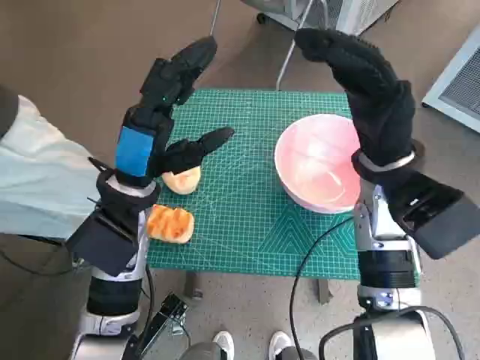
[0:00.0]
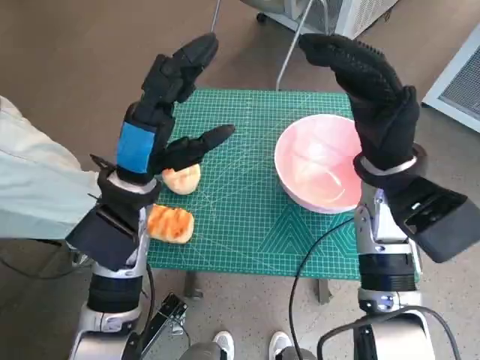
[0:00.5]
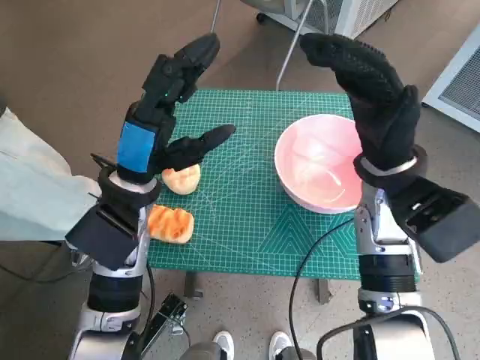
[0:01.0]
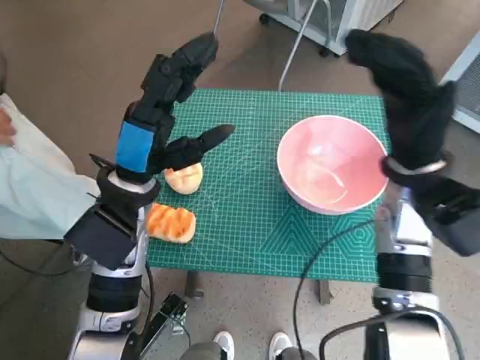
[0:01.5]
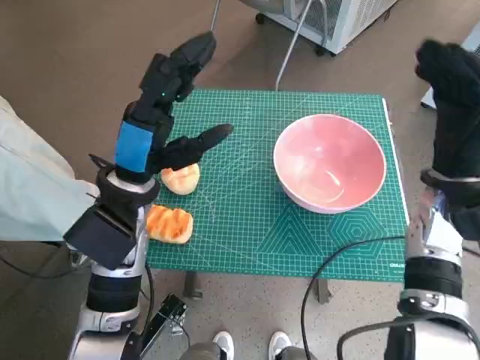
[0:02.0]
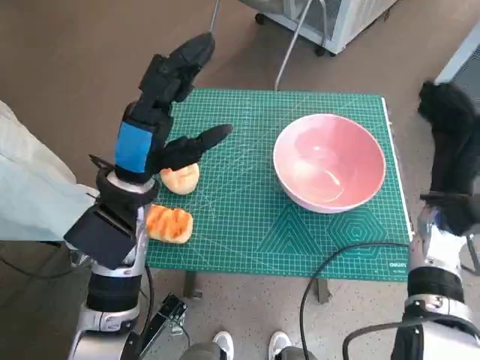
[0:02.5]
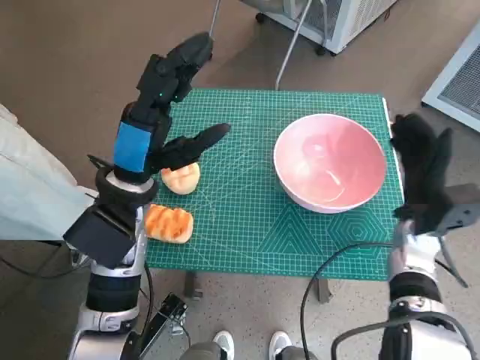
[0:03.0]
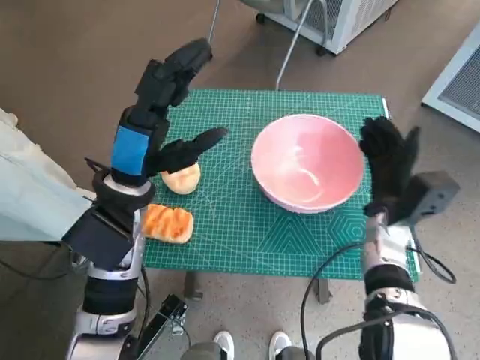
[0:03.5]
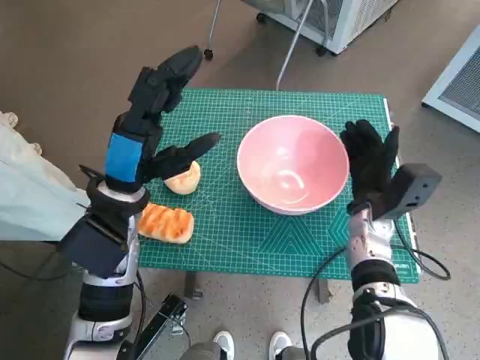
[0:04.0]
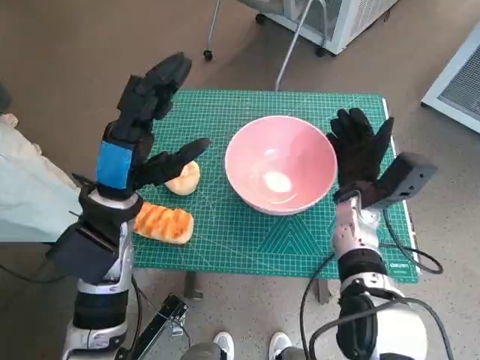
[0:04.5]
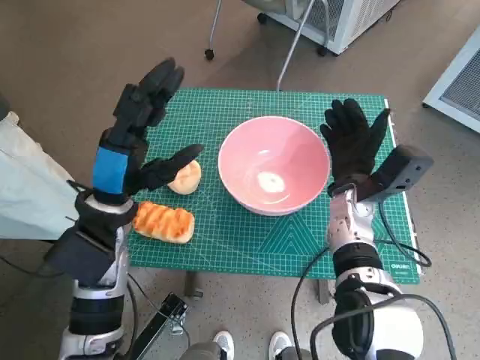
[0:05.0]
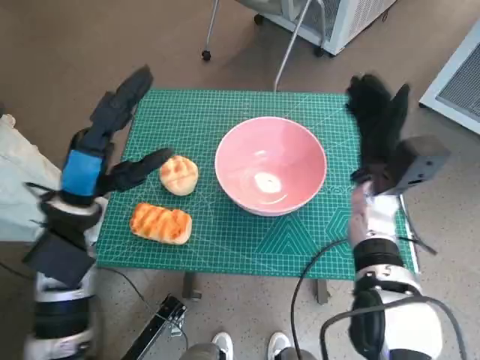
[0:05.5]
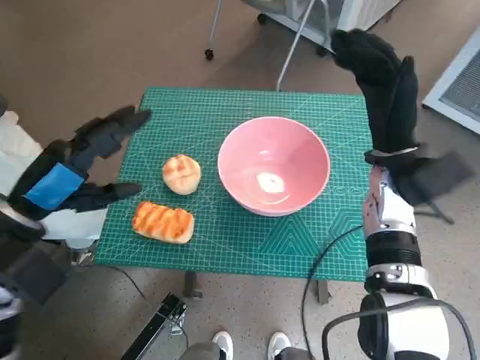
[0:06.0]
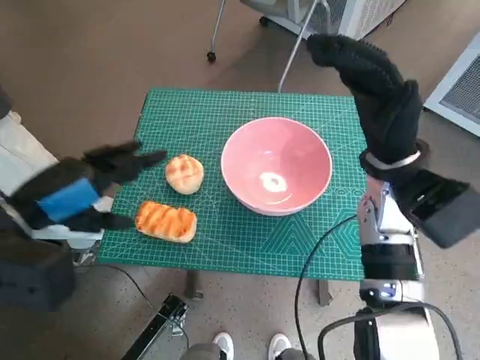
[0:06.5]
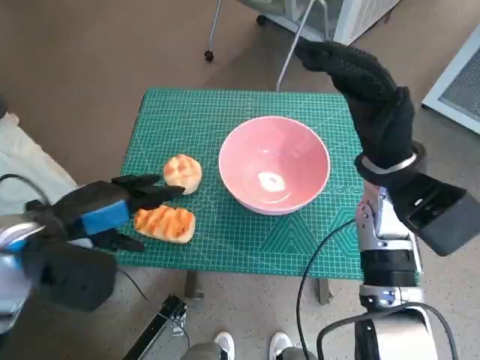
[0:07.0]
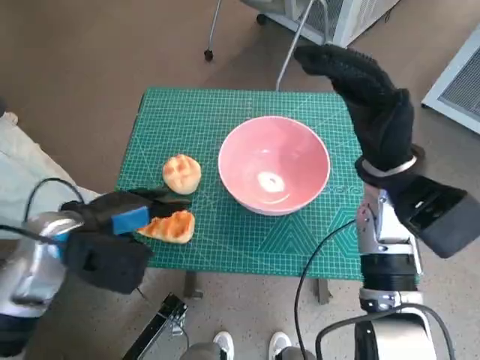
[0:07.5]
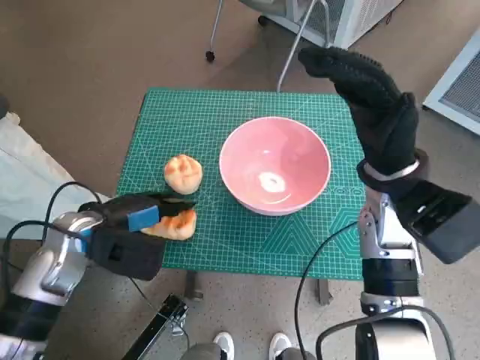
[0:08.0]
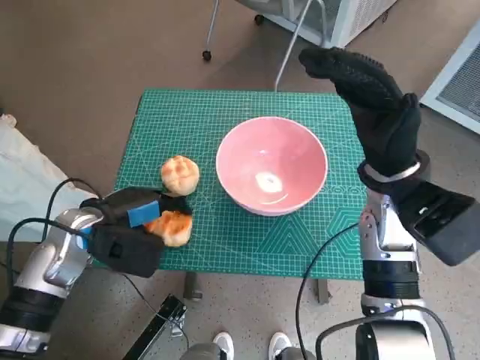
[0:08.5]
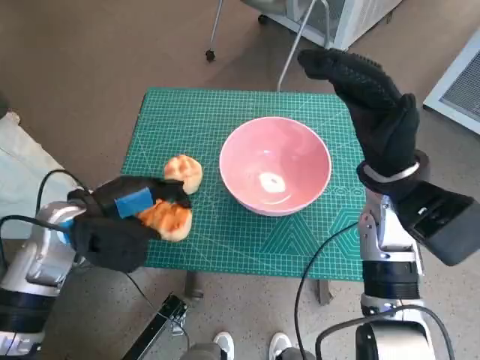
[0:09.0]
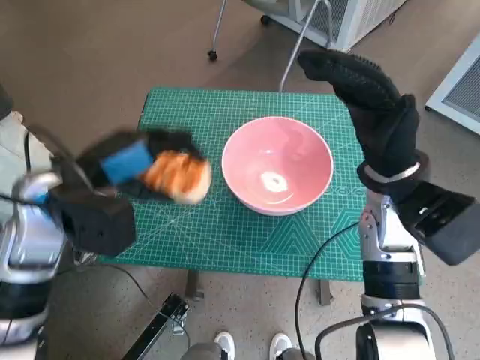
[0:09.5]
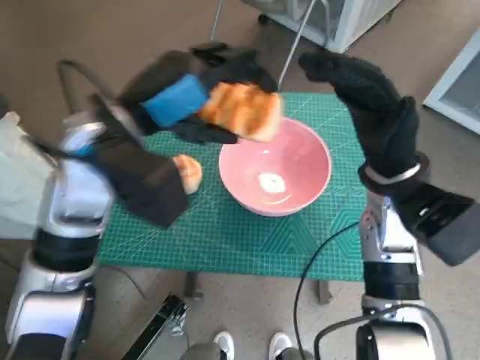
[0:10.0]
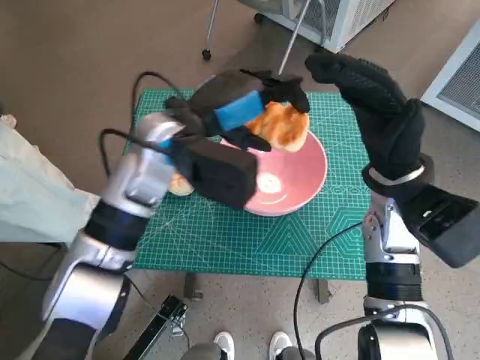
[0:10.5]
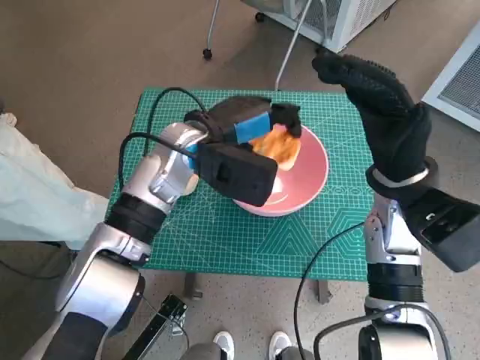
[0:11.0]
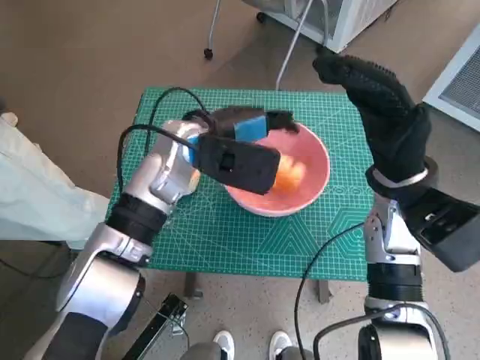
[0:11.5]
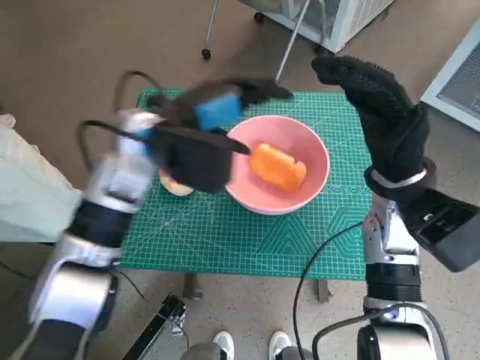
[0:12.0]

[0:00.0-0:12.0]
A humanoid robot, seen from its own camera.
Task of the whole recording: Push the bowl to the center of the table and put the bread into the bowl.
Step, 0:00.0 to 0:05.0: Move the pink bowl to the center of table with right hand.
Step, 0:05.5 to 0:08.5: Grasp the long bread with left hand.
Step, 0:09.0 to 0:11.5: Place the long bread in pink bowl with left hand.
0:02.0 to 0:04.0: The right hand travels downward and to the left by approximately 10 cm.
0:04.0 to 0:06.0: The right hand travels upward by approximately 10 cm. Meanwhile the left hand heads to the left, covering about 10 cm.
0:06.0 to 0:08.0: The left hand shifts some 5 cm downward.
0:08.0 to 0:10.0: The left hand shifts approximately 15 cm upward and to the right.

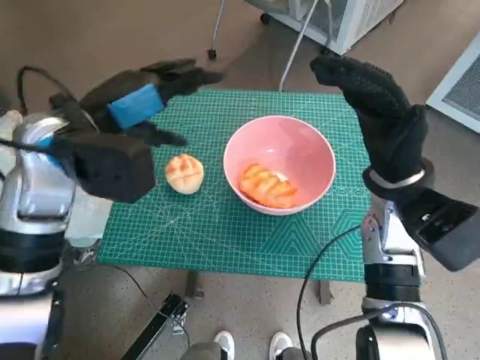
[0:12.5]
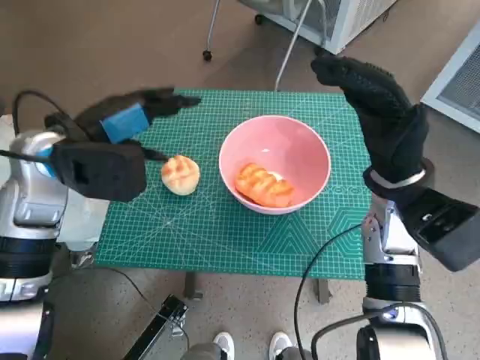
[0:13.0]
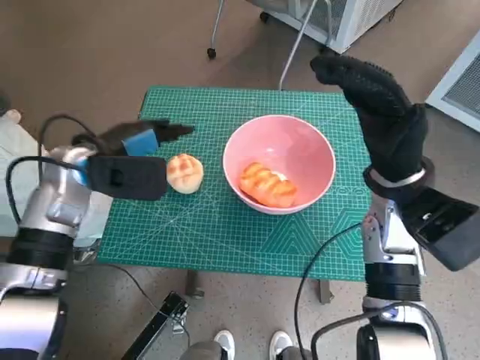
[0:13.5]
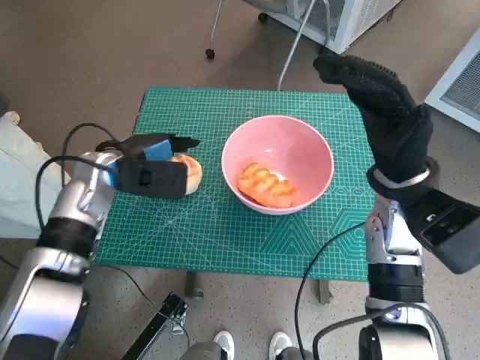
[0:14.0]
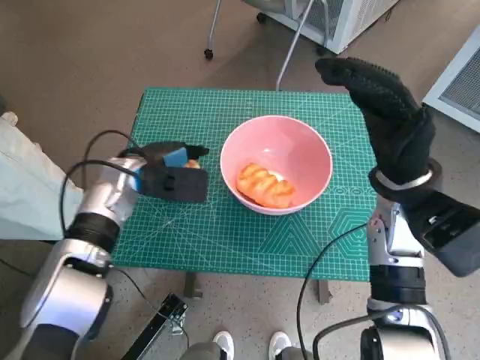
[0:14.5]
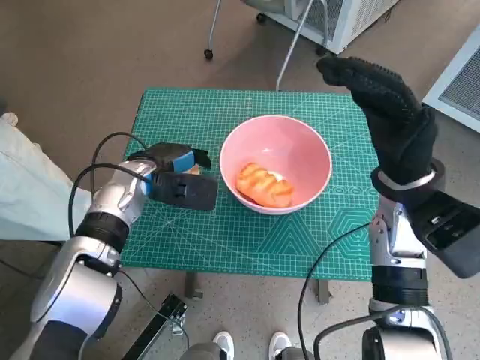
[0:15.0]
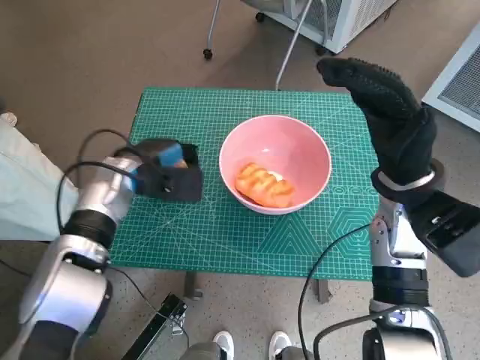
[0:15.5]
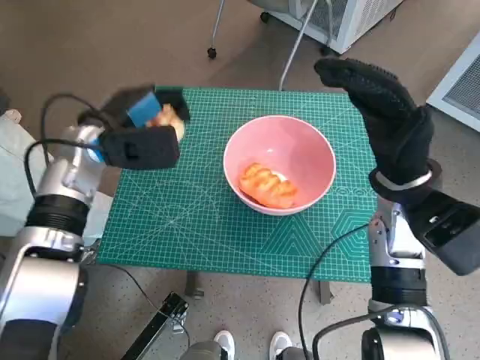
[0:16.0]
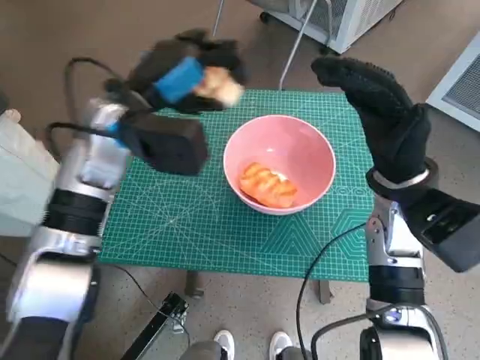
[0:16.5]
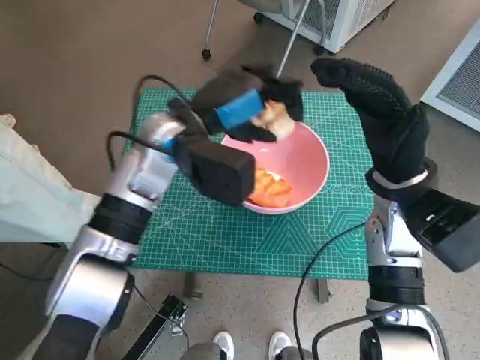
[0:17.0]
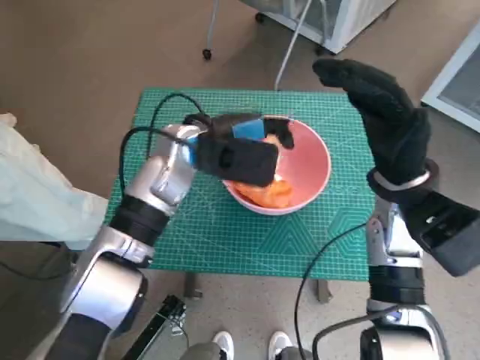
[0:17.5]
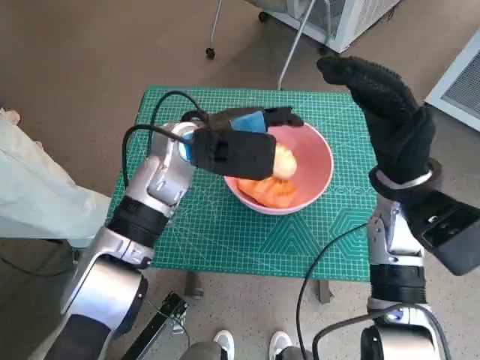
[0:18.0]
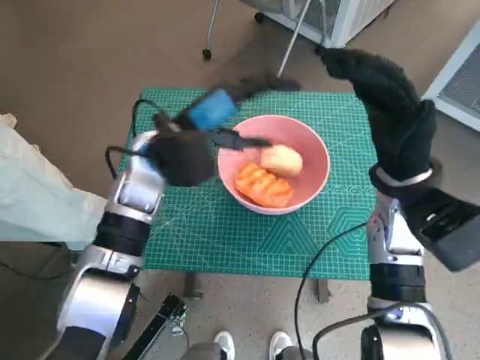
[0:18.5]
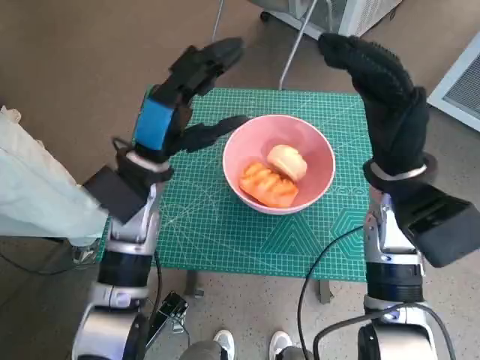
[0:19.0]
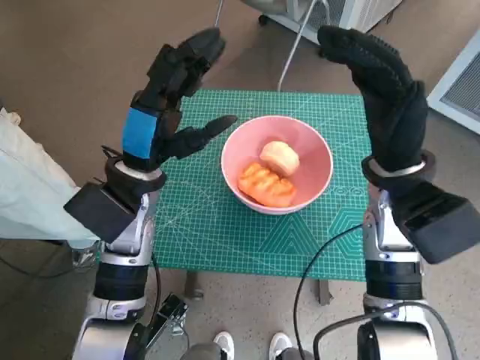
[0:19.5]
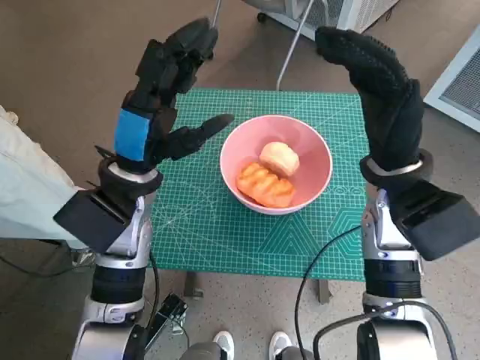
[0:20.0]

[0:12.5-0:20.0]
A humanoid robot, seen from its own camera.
Task of the whole recording: Push the bowl to the center of the table and put the bread into the bowl.
Step, 0:12.5 to 0:15.0: Grasp the round bread with left hand.
Step, 0:15.5 to 0:18.0: Place the round bread in pink bowl with left hand.
0:12.5 to 0:14.5: The left hand moves downward, approximately 15 cm.
0:14.5 to 0:16.5: The left hand moves upward, roughly 10 cm.
0:16.5 to 0:18.0: The left hand moves to the right, some 10 cm.
0:18.0 to 0:20.0: The left hand moves backward and to the left, roughly 10 cm.

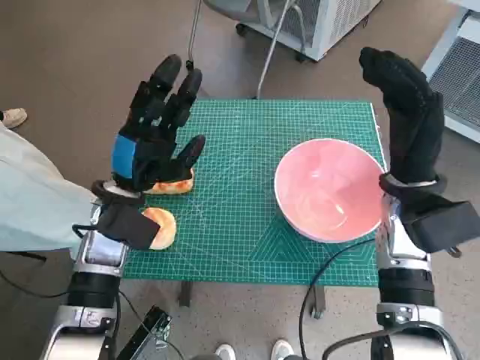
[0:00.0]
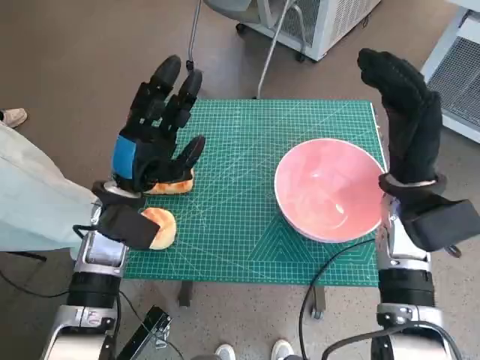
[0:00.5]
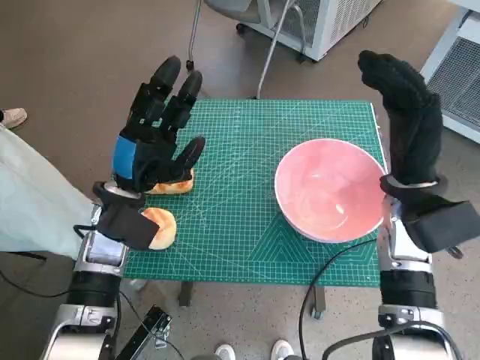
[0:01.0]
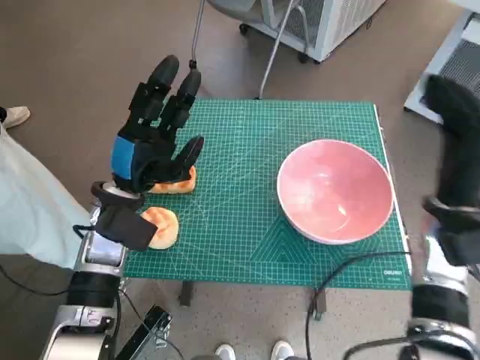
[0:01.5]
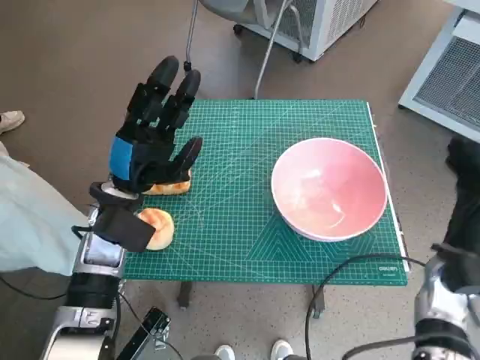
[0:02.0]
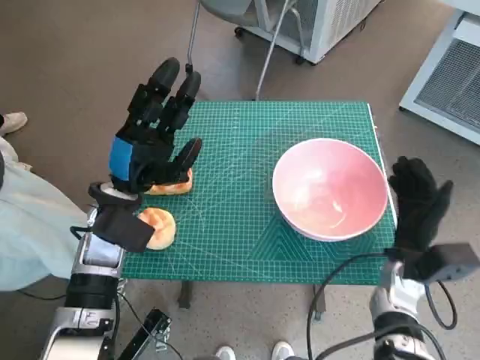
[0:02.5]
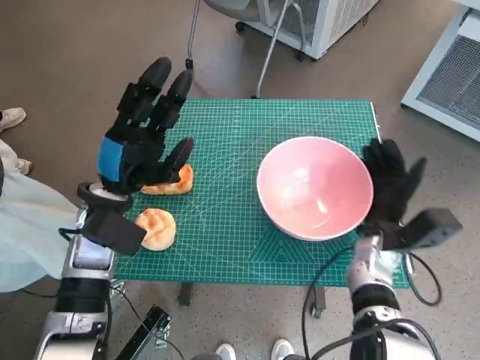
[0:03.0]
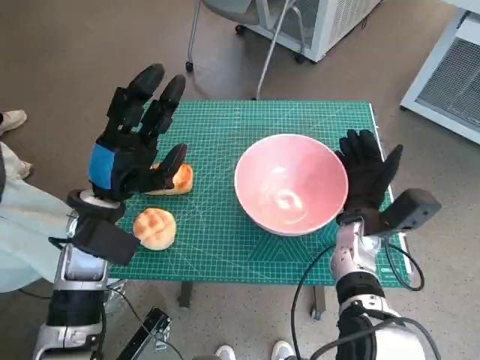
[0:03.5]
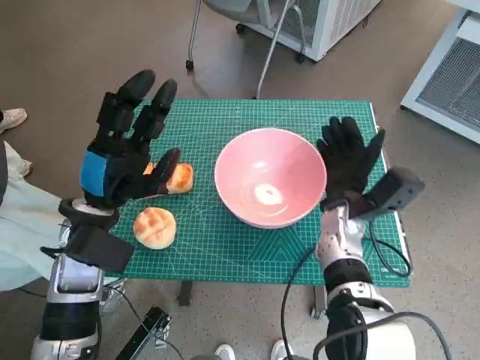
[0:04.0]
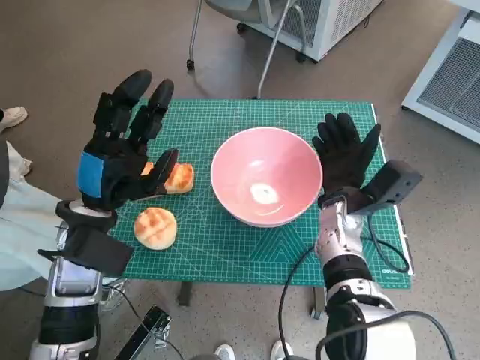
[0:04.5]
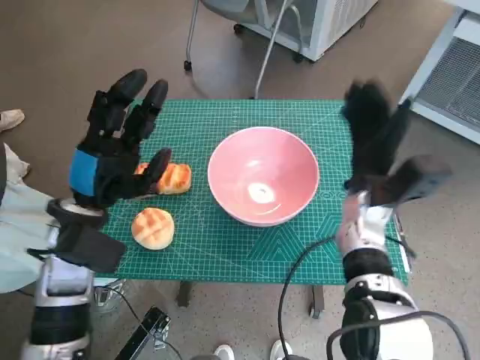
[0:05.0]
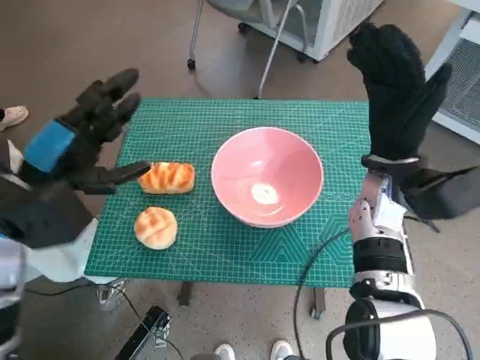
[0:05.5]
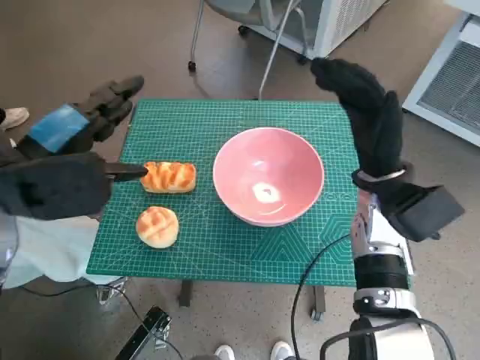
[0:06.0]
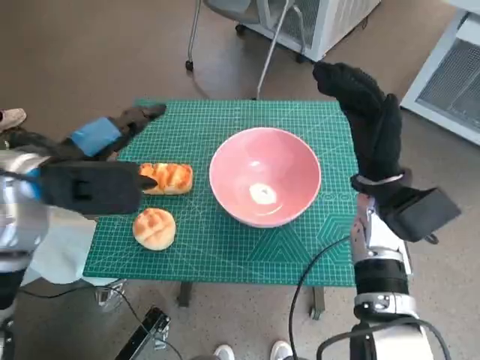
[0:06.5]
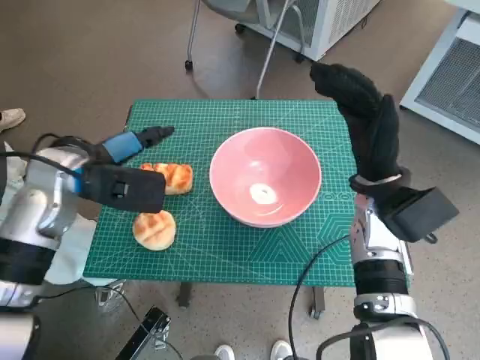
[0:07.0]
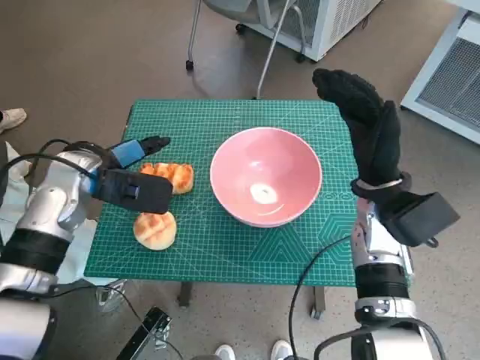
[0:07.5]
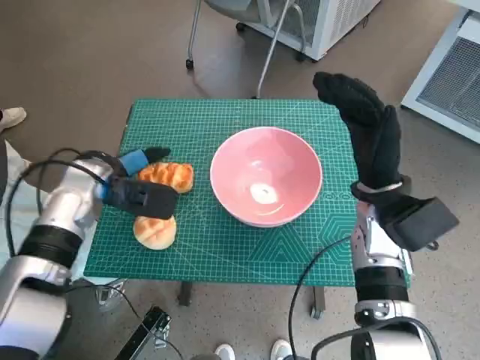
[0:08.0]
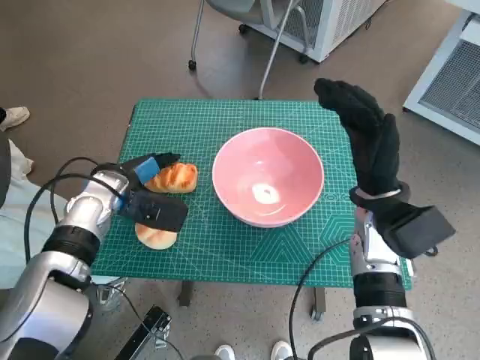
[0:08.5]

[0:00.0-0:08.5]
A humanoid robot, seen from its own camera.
Task of the whole recording: Push the bowl to the center of the table and put the bread into the bowl.
Step, 0:00.0 to 0:04.5: Move the pink bowl to the center of table with right hand.
0:02.0 to 0:04.0: The right hand moves to the left and forward, roughly 15 cm.
0:04.0 to 0:06.5: The two hands go roughly 10 cm upward.
0:06.5 to 0:08.5: The left hand shifts some 15 cm downward and forward.
